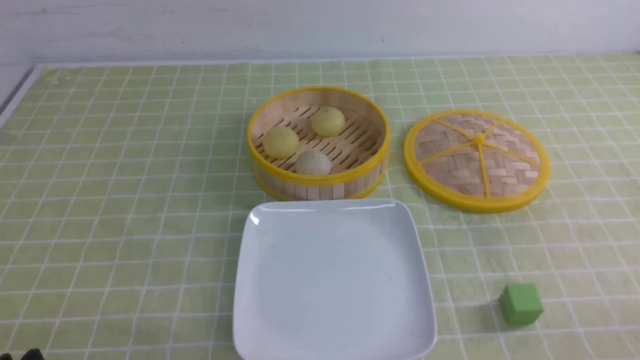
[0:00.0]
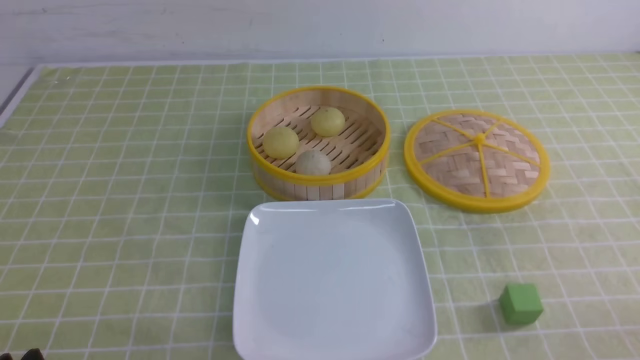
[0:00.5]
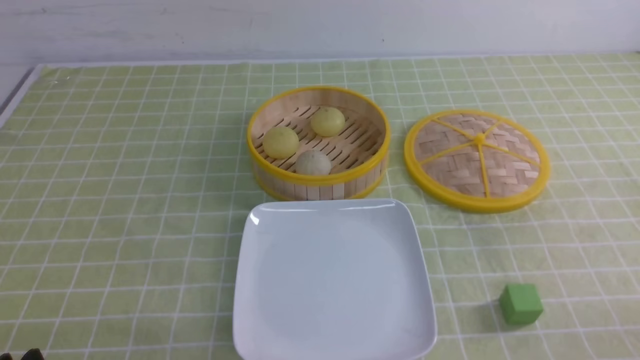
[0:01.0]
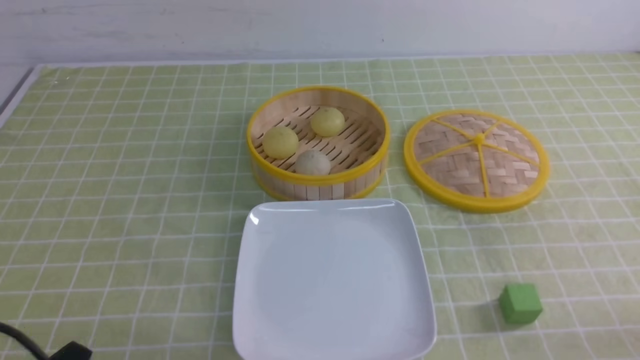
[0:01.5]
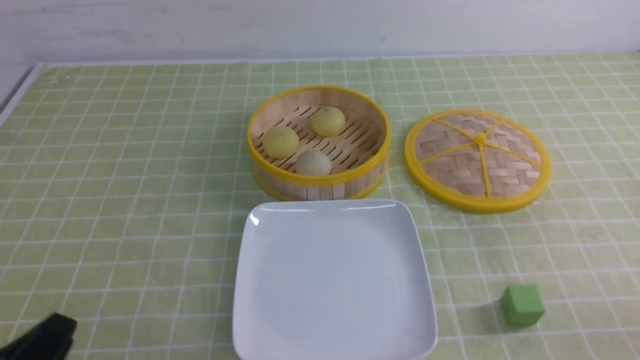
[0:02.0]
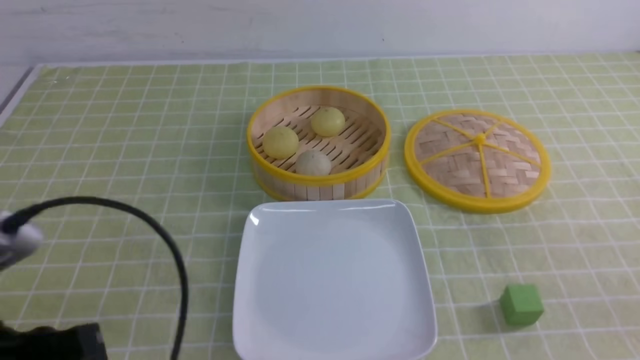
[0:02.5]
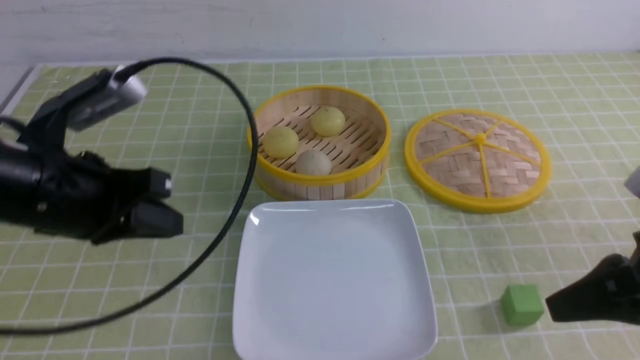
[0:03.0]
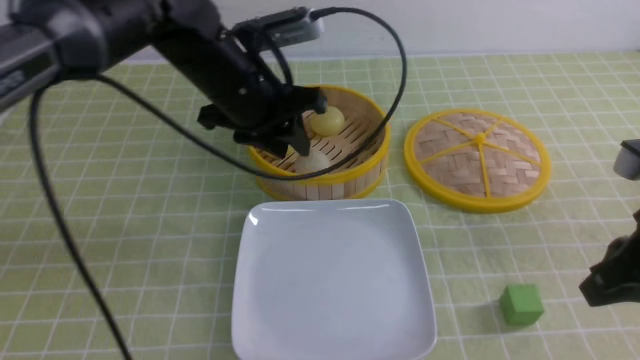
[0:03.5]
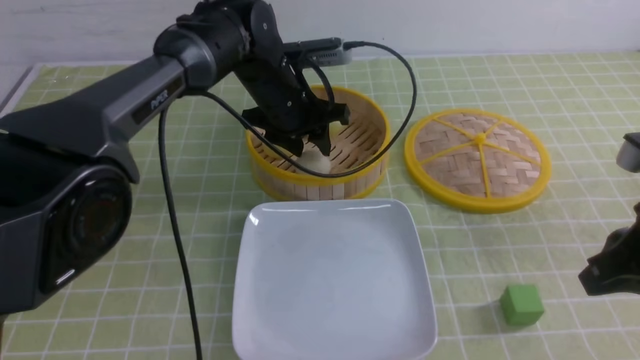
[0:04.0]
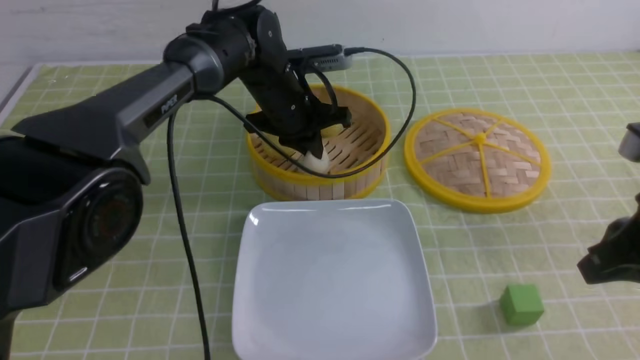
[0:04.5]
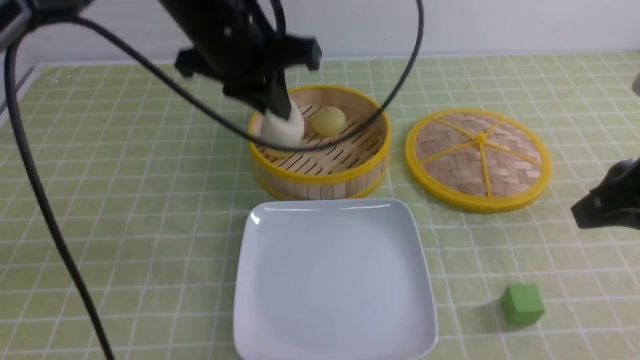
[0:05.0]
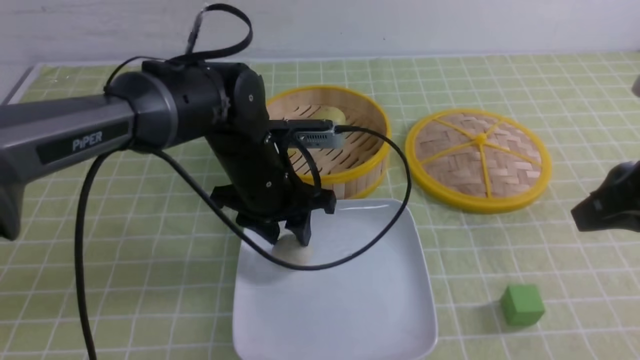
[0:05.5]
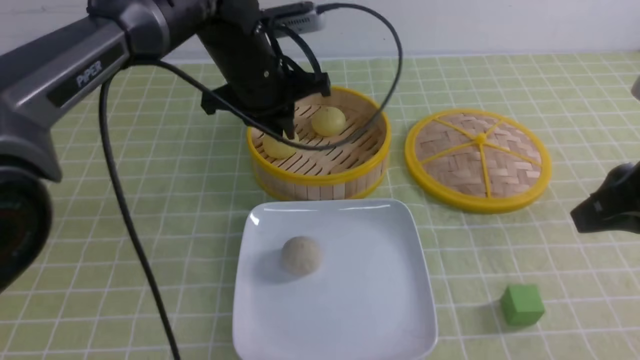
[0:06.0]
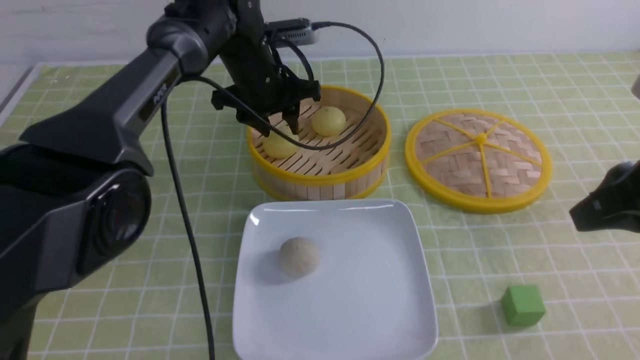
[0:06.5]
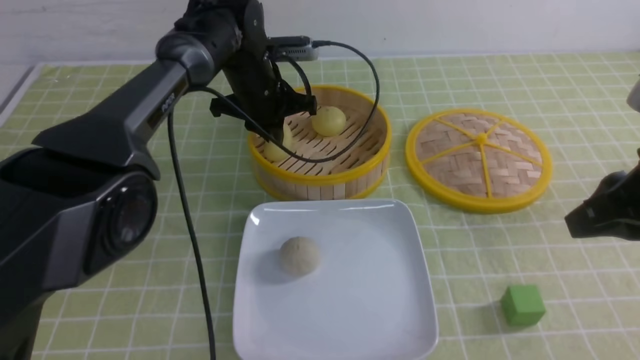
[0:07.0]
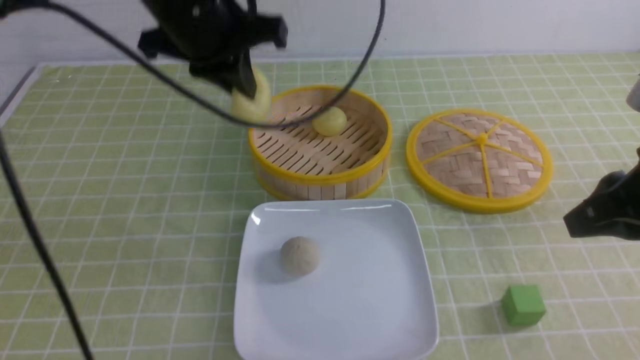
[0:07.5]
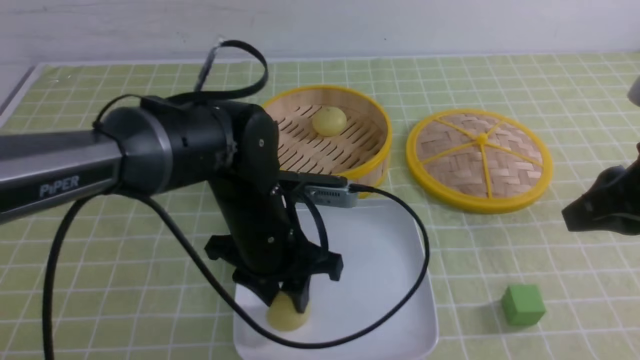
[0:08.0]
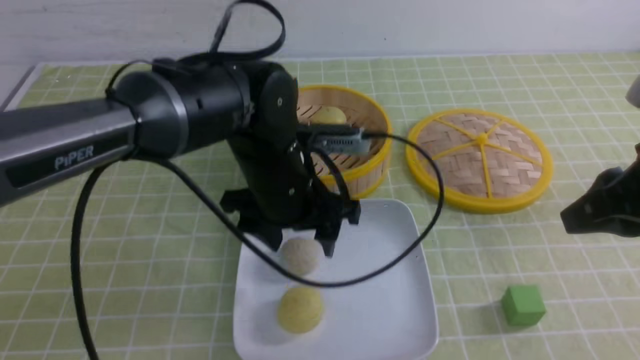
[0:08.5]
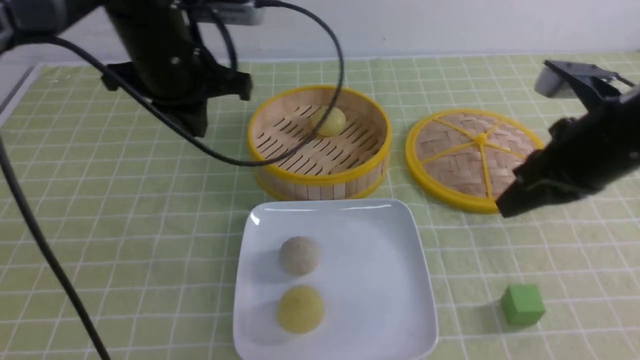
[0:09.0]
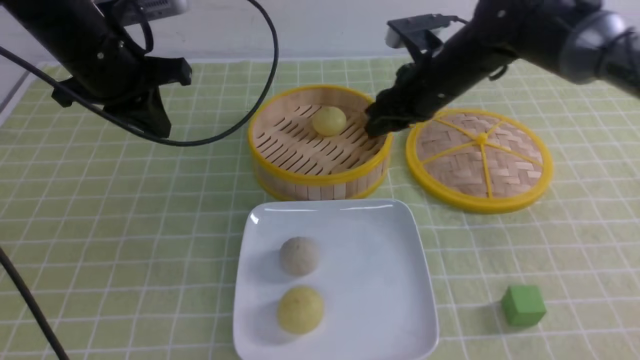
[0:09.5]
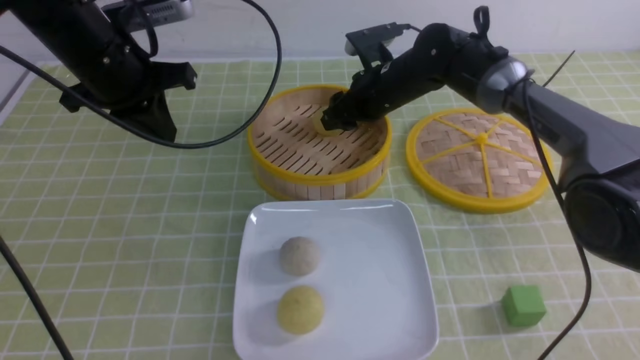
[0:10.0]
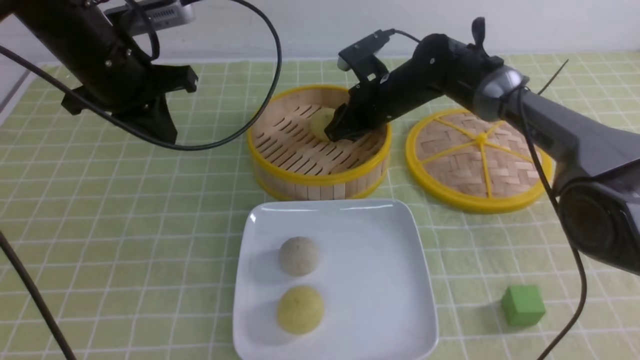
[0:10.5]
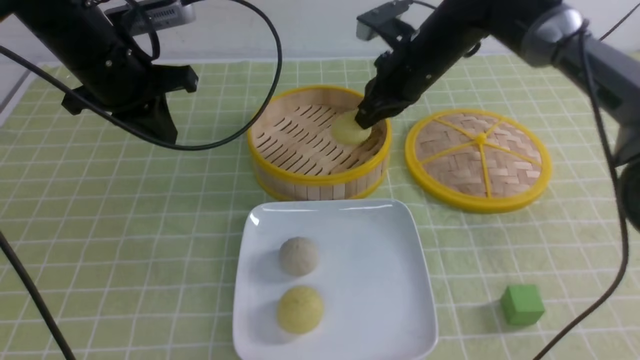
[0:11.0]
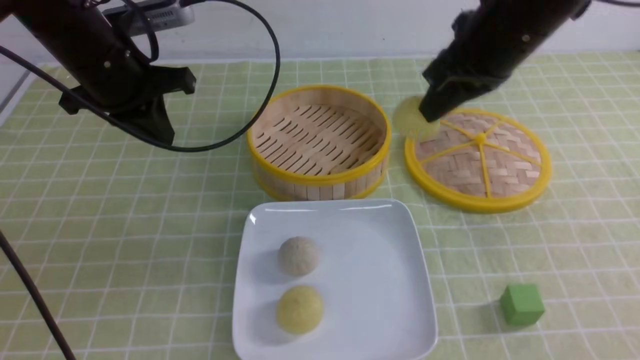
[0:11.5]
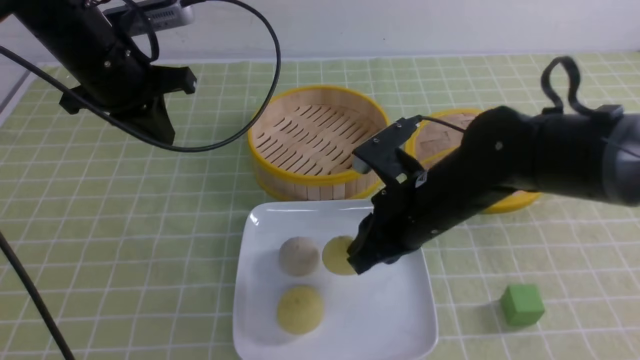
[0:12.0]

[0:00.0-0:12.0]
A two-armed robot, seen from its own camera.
Step, 0:00.0 to 0:04.0: use the left arm to grab the steamed stuffed bun that is closest to it.
Step, 0:04.5 to 0:05.5: use the left arm to put the steamed stuffed bun into the plate.
Step, 0:06.0 to 0:06.5: use the left arm to grab the steamed stuffed bun that is closest to it.
Step, 0:07.0 to 0:08.0: use the left arm to put the steamed stuffed bun into the plate.
Step, 0:08.5 to 0:10.5: use the right arm to grab the steamed stuffed bun that is closest to it.
0:00.0 to 0:02.0: The left gripper shifts roughly 5 cm upward.
0:02.0 to 0:04.0: The left gripper travels forward and to the right by approximately 50 cm, and opens. The right gripper is displaced forward and upward by roughly 15 cm, and closes up.
0:04.0 to 0:06.0: The left gripper travels upward by about 5 cm, reaches roughly 10 cm backward, then returns, and closes its fingers.
0:06.0 to 0:08.0: The left gripper shifts some 15 cm backward and downward, and opens up.
0:08.0 to 0:10.0: The right gripper travels forward and to the left by some 35 cm, and opens its fingers. The left gripper travels to the left, upward and forward by roughly 20 cm, and closes.
0:10.0 to 0:12.0: The right gripper heads backward, covering roughly 20 cm, and closes.

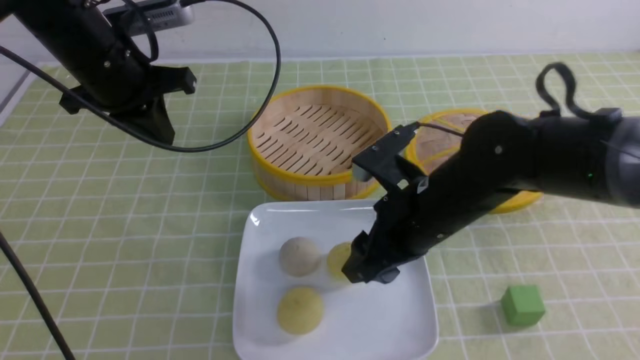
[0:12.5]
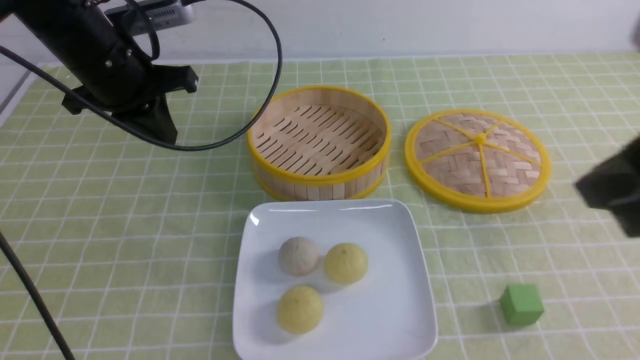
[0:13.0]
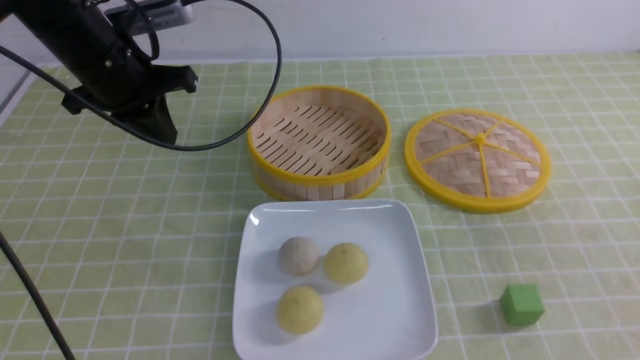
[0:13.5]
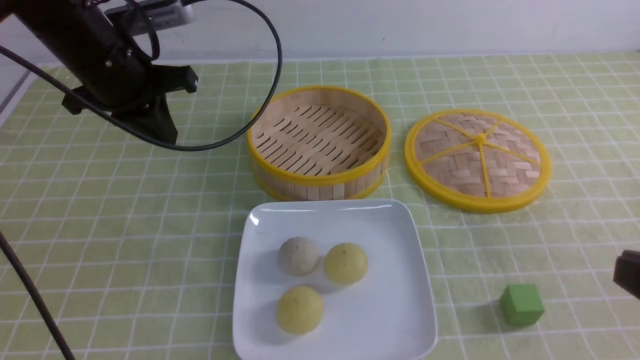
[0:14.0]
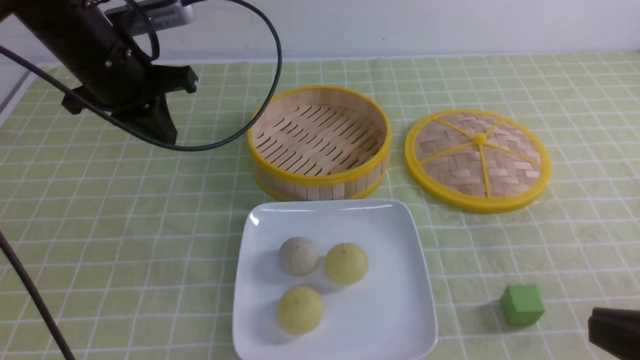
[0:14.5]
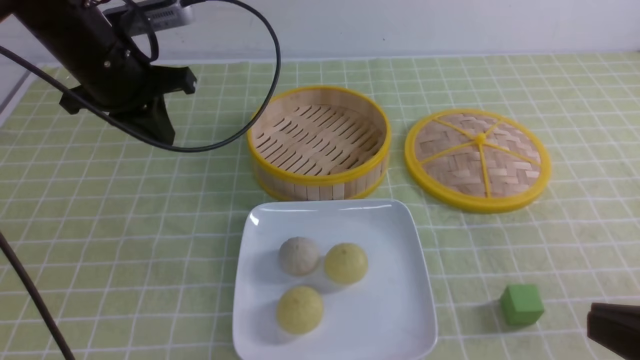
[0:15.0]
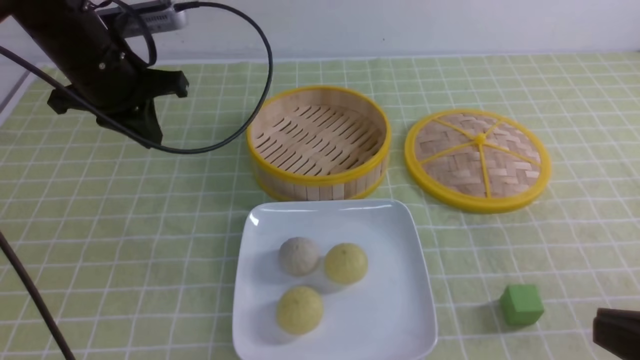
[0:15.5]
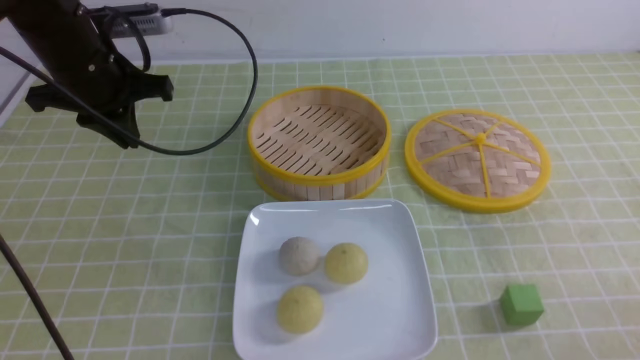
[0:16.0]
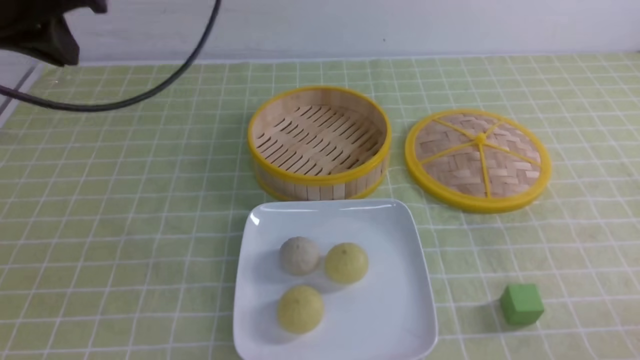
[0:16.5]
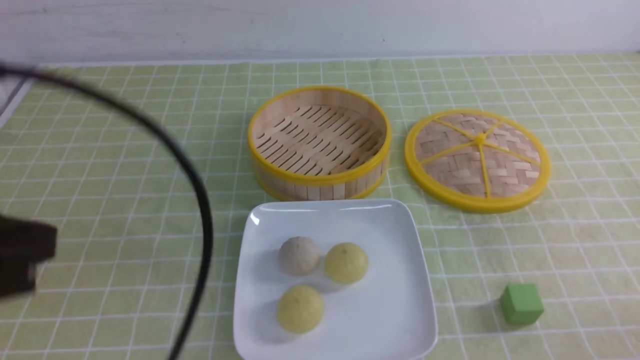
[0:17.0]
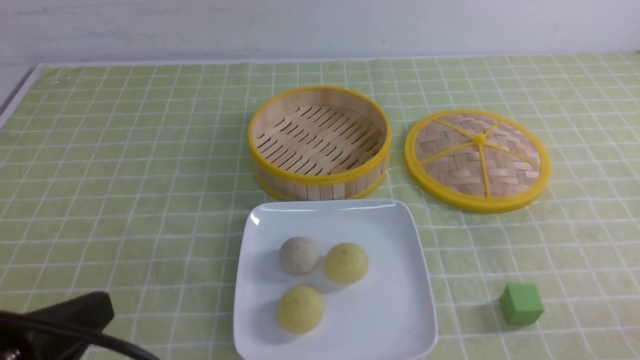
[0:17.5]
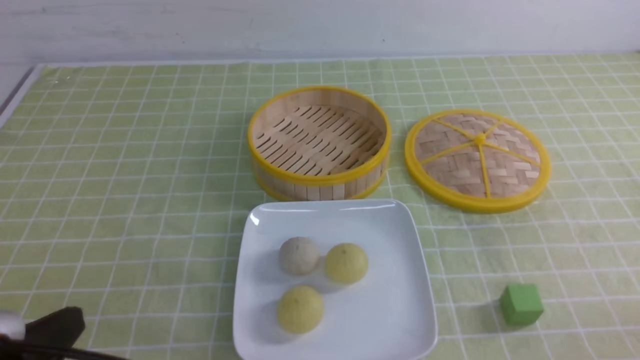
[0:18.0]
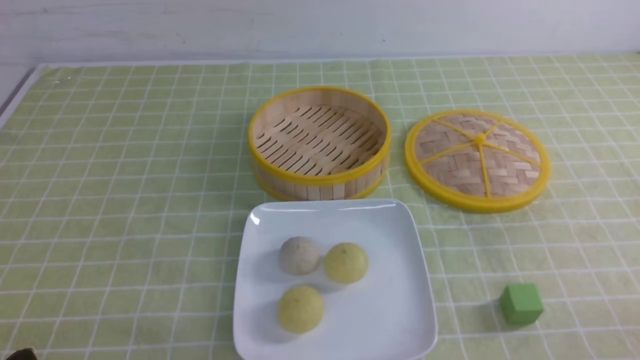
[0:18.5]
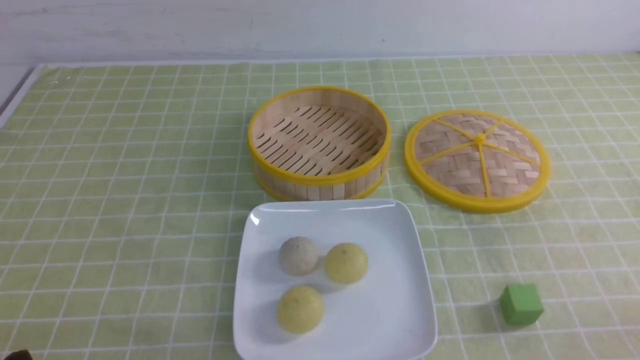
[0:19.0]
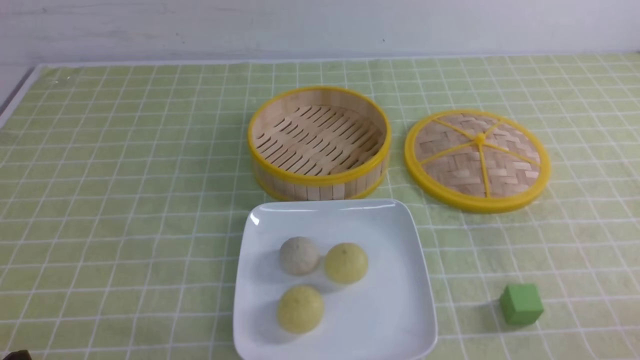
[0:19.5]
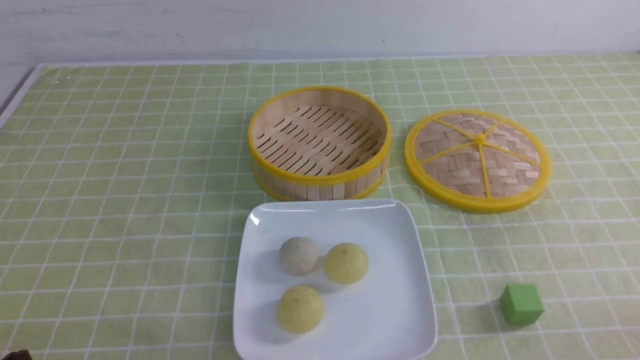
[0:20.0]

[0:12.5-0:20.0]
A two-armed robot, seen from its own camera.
0:12.5 to 0:14.5: The right gripper travels backward and to the right by approximately 25 cm, and closes up.
0:14.5 to 0:16.5: The right gripper travels downward and to the right by some 15 cm. Meanwhile the left gripper heads upward and backward, covering roughly 15 cm.
0:16.5 to 0:18.0: The left gripper travels backward and downward by some 30 cm.
0:18.0 to 0:20.0: The left gripper travels downward by approximately 5 cm.
